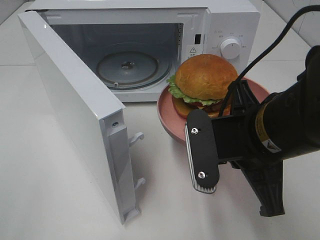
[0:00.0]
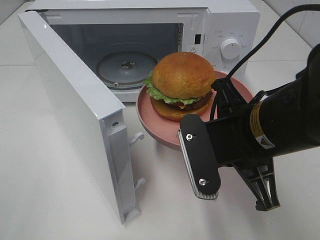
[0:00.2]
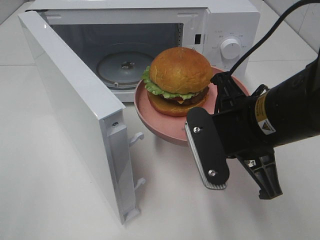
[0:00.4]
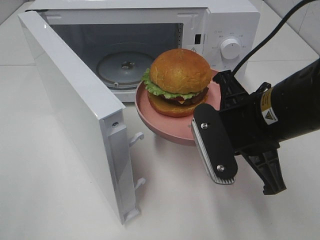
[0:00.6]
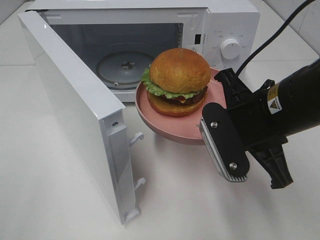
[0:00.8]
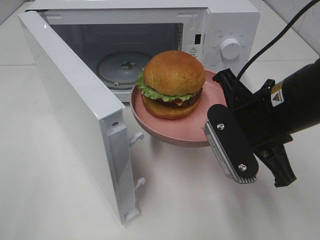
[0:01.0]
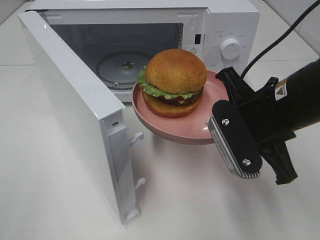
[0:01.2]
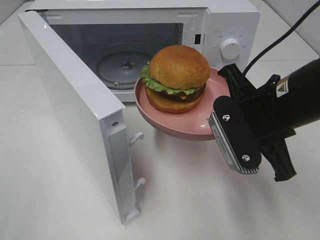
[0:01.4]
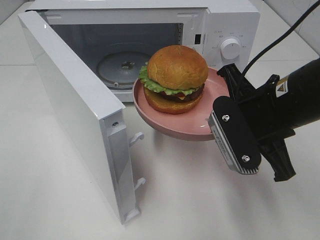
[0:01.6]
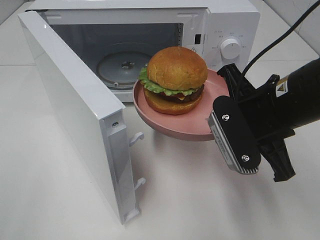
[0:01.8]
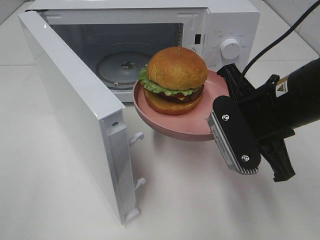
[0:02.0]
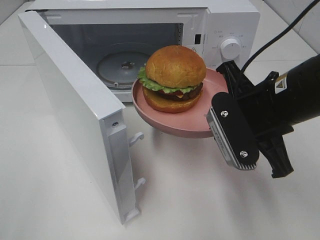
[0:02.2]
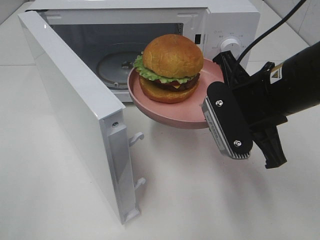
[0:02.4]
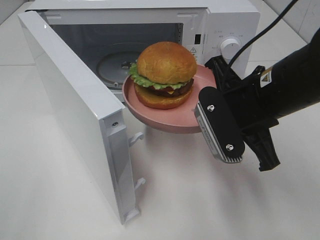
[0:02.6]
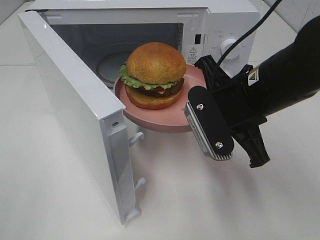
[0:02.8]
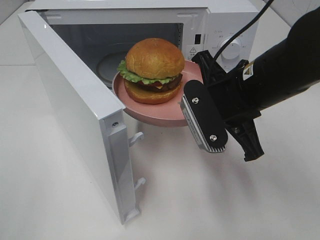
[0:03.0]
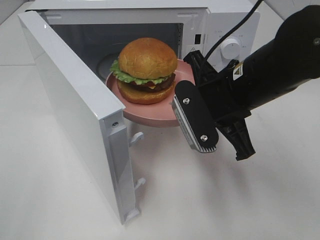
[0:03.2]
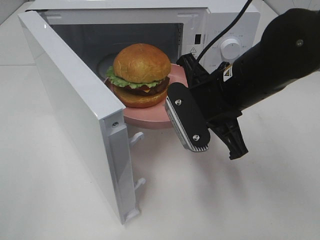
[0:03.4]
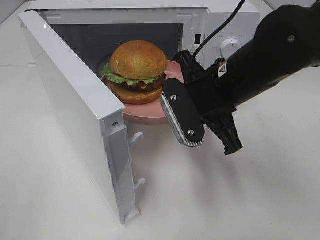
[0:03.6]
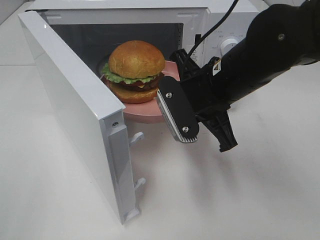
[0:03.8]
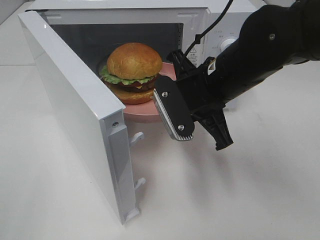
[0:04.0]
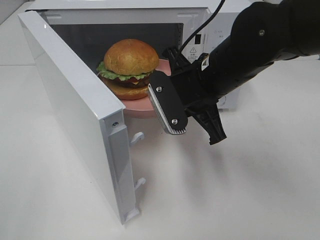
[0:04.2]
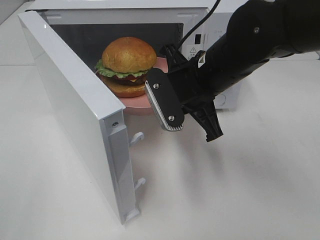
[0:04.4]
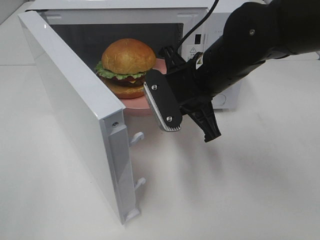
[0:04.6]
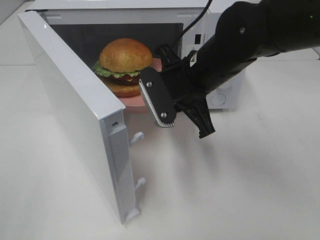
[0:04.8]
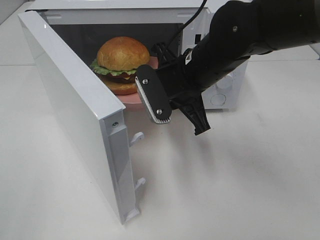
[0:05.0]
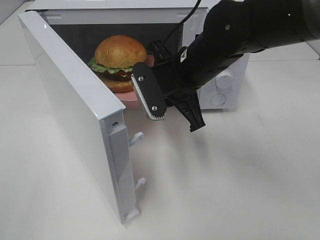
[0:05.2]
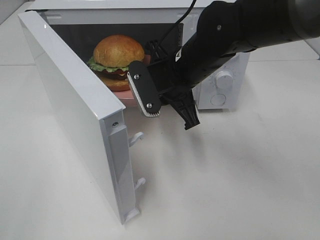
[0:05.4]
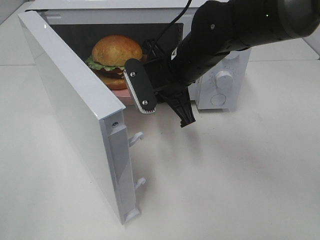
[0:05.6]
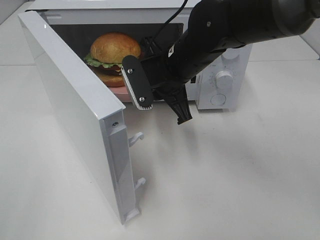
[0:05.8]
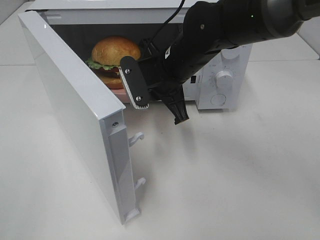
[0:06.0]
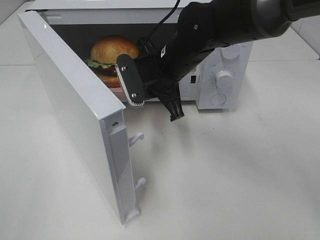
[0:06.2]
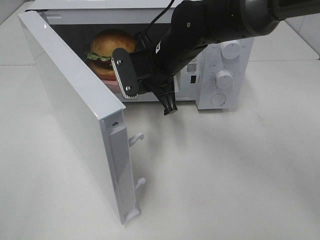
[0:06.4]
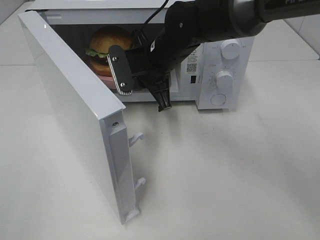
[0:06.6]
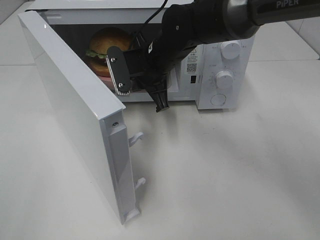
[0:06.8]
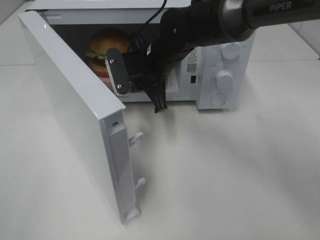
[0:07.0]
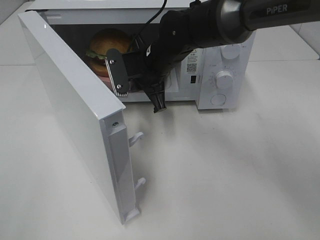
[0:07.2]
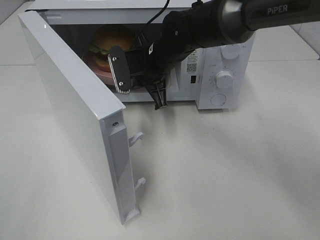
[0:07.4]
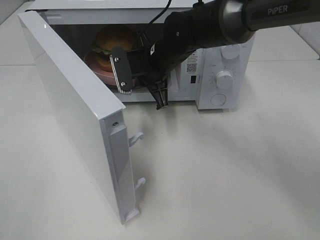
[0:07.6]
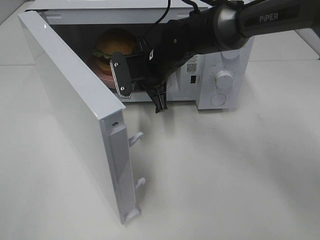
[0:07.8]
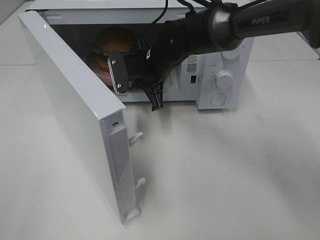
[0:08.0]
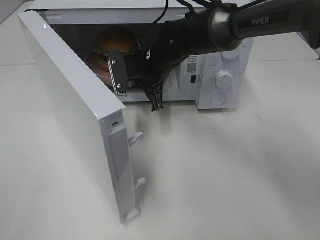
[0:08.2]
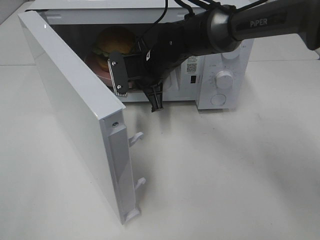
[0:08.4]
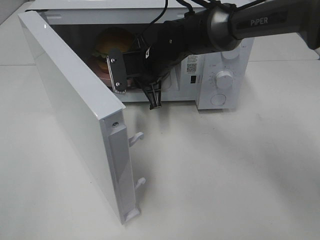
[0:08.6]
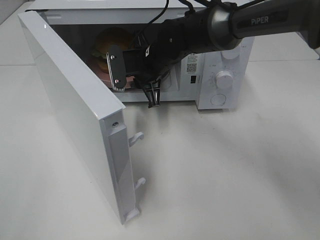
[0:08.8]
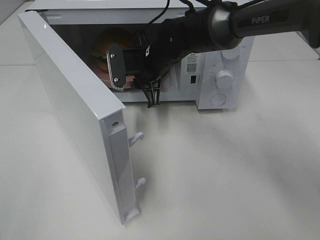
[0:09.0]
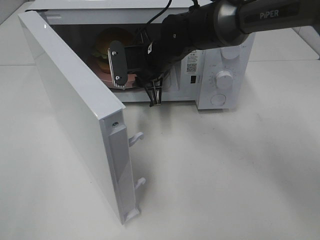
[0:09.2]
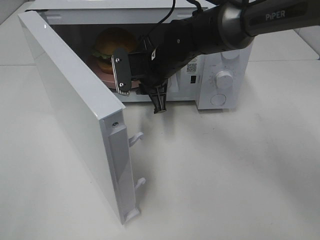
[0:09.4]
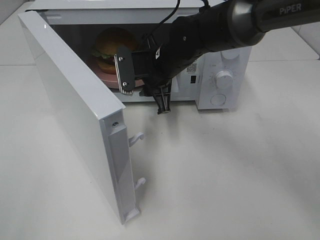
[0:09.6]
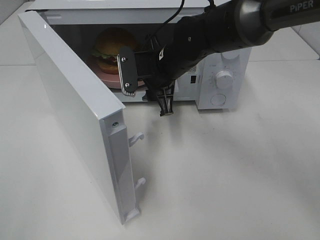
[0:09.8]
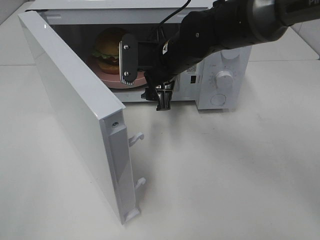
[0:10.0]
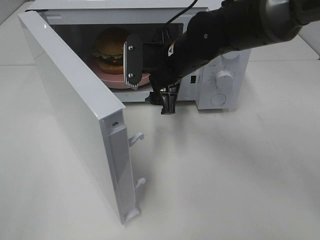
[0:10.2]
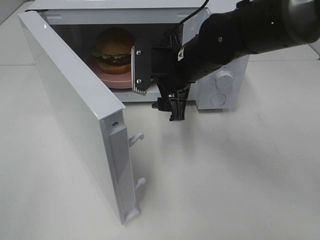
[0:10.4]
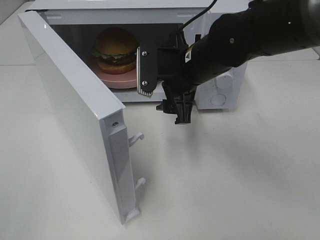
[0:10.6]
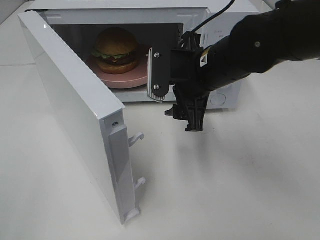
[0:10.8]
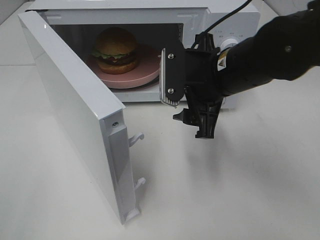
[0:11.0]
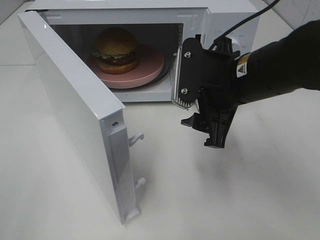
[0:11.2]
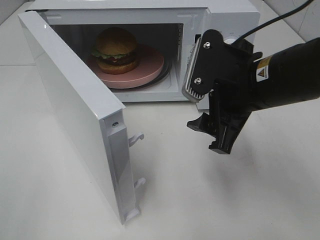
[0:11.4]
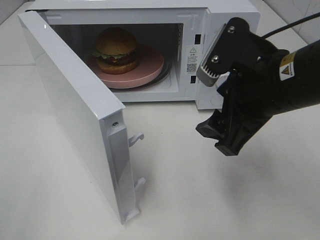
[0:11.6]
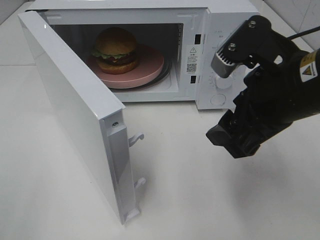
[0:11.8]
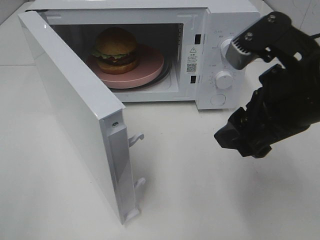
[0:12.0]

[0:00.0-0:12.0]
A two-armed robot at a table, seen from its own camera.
Task of the whole recording: Heat the burger.
Step, 0:00.0 to 0:08.6: Right hand: place the plate in the microwave.
0:00.0 to 0:01.6: The right gripper ends up about 5 cm from where it was.
0:03.0 to 0:04.4: The right gripper ends up about 5 cm from where it was.
0:04.4 to 0:06.0: The right gripper heads forward, covering roughly 5 cm.
0:06.0 to 0:07.6: The right gripper heads forward, covering approximately 5 cm.
0:07.6 to 0:09.0: The grippers move only a little.
0:09.0 to 0:10.4: The right gripper goes roughly 10 cm backward and to the right, and opens up.
0:10.4 to 0:12.0: The right gripper shifts approximately 20 cm backward, to the right and upward.

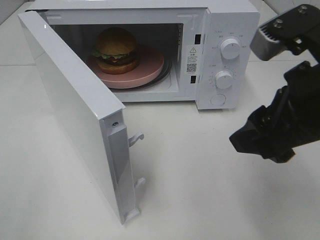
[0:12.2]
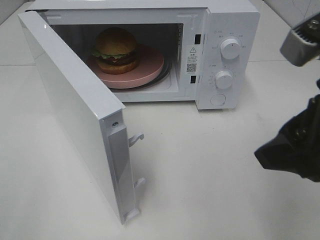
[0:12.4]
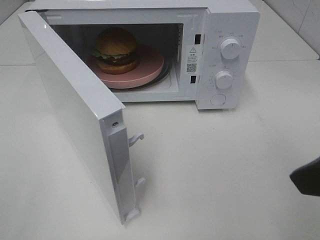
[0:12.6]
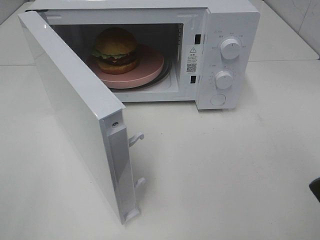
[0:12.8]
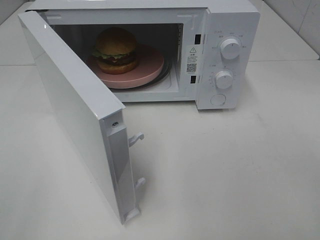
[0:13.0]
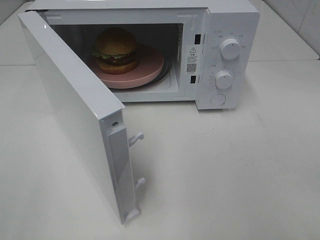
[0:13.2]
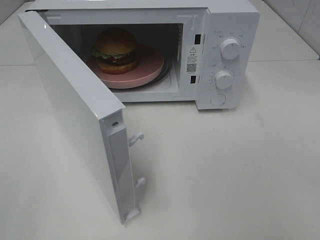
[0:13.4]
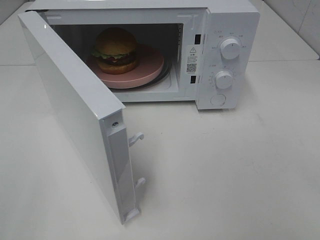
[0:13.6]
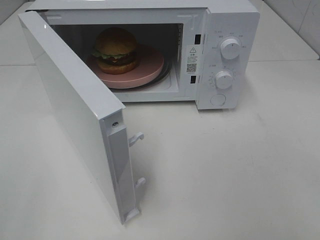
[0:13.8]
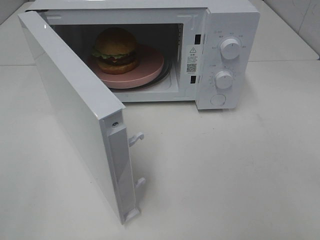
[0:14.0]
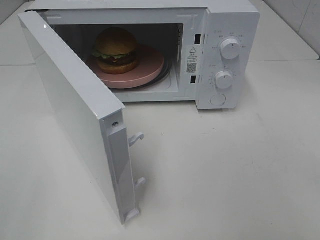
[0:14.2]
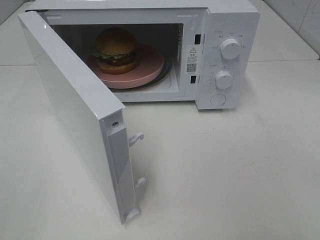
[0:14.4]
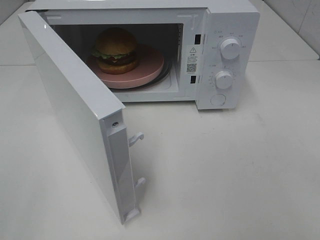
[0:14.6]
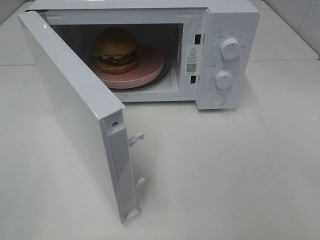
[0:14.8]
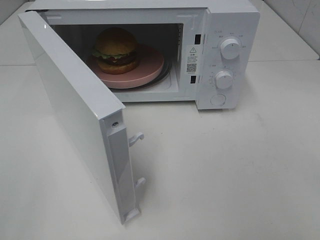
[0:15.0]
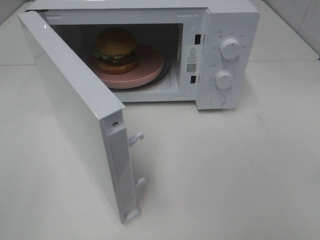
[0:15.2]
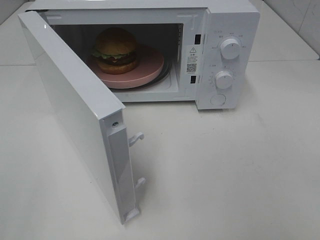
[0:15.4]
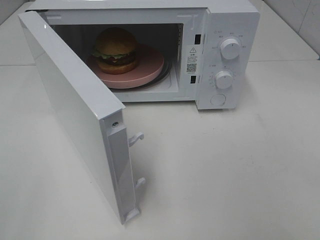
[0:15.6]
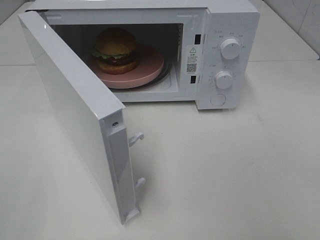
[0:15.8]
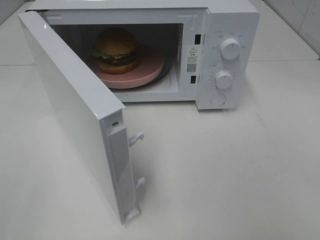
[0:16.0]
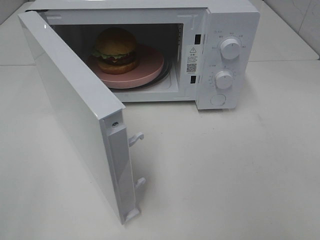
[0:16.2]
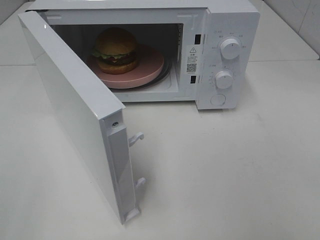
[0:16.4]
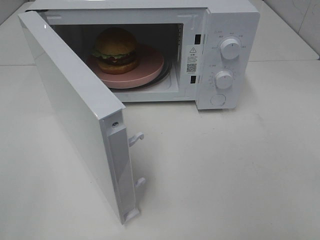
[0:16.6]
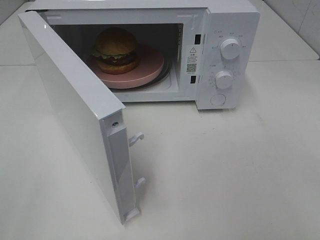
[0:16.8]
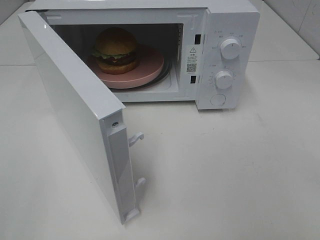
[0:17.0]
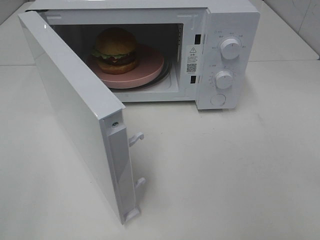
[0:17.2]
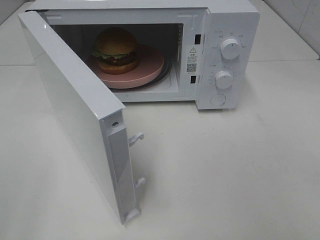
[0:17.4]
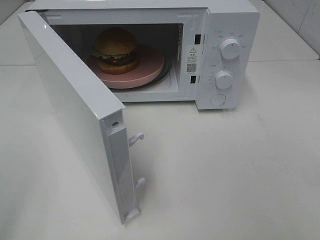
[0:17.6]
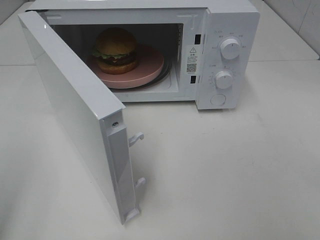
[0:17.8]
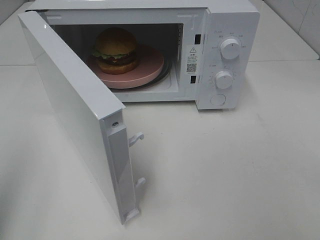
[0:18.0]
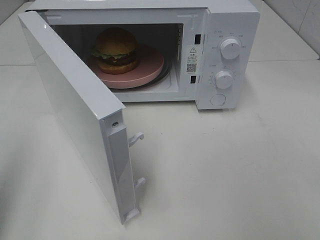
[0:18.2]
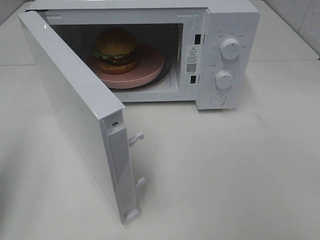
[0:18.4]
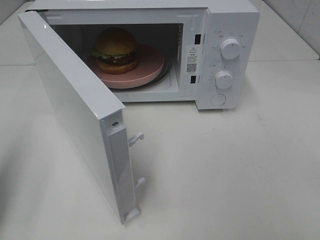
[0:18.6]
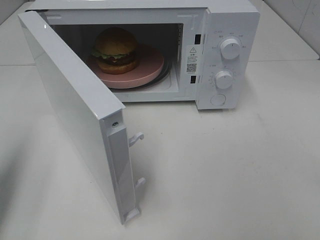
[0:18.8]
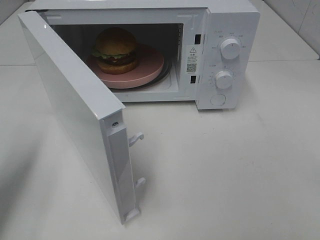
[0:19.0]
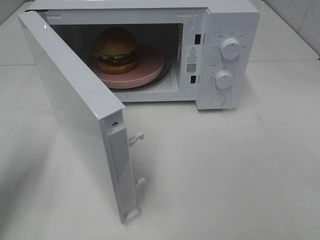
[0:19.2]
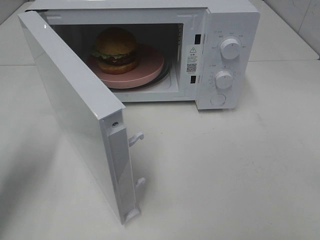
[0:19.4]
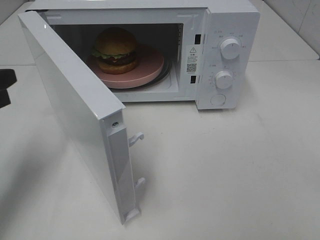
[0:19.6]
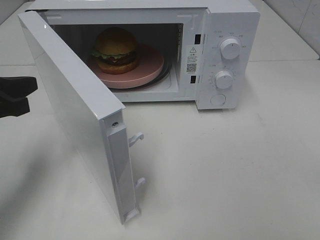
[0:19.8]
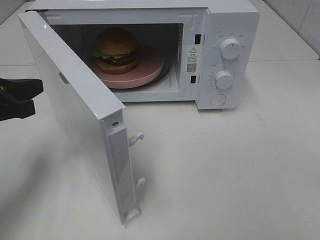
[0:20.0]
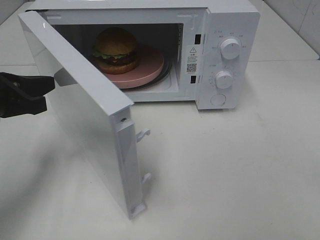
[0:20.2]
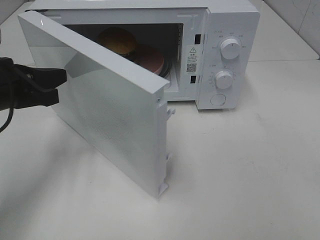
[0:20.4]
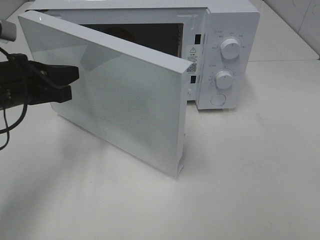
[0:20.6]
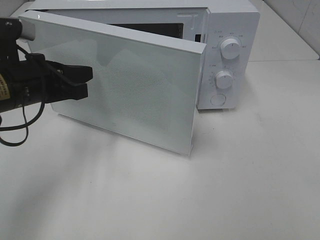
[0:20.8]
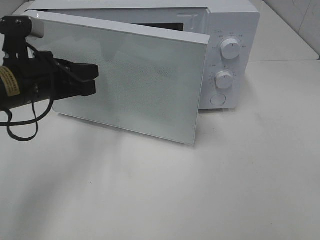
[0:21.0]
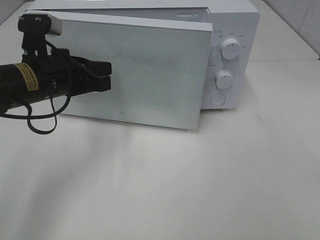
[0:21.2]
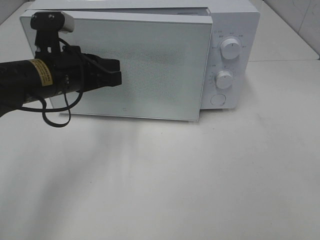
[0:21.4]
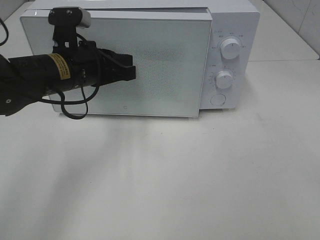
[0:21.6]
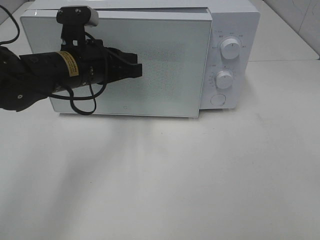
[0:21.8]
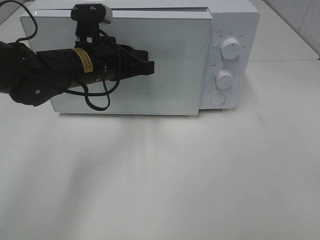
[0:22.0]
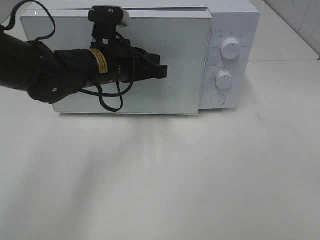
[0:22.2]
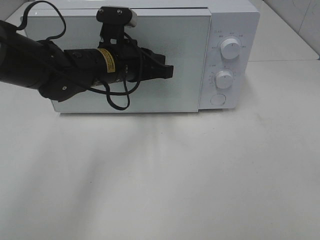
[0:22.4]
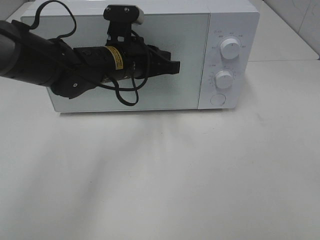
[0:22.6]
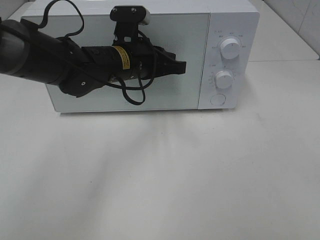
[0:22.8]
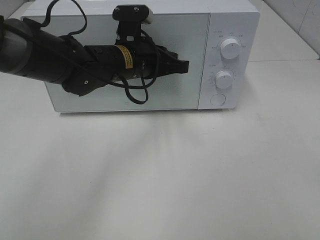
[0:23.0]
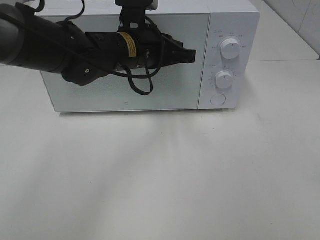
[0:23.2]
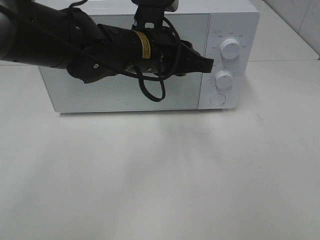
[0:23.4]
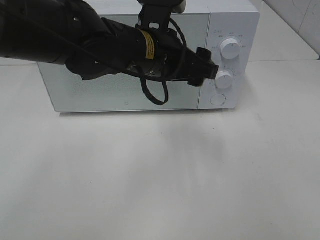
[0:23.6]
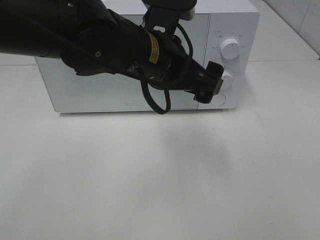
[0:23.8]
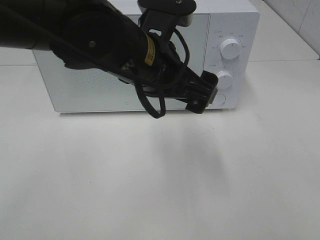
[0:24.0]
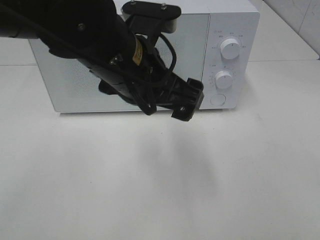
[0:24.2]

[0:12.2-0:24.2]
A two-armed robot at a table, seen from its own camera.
Task of the whole recording: Heat the burger.
Step, 0:12.2 to 0:23.2: Left hand: close the microwave door.
0:12.2 to 0:13.8: The right gripper travels backward and to the right by some 20 cm.
0:13.8 to 0:16.6: Neither gripper changes place.
0:16.6 to 0:18.2: The left gripper travels forward by approximately 10 cm, and closes up.
0:18.2 to 0:19.8: The left gripper moves forward, downward and to the right, some 15 cm.
0:19.8 to 0:21.2: The left gripper goes about 10 cm to the right and forward.
0:21.2 to 0:22.6: The left gripper travels to the right and forward by some 10 cm.
0:22.6 to 0:24.2: The left gripper goes some 15 cm backward and upward, and opens.
